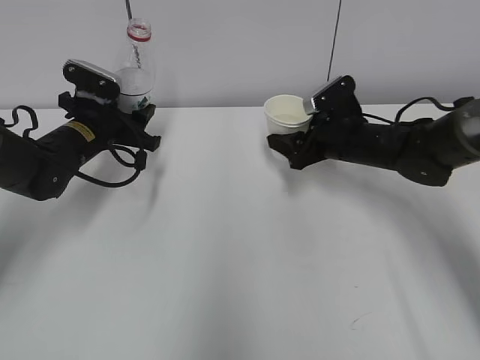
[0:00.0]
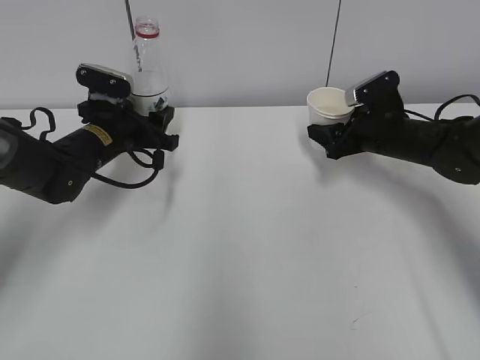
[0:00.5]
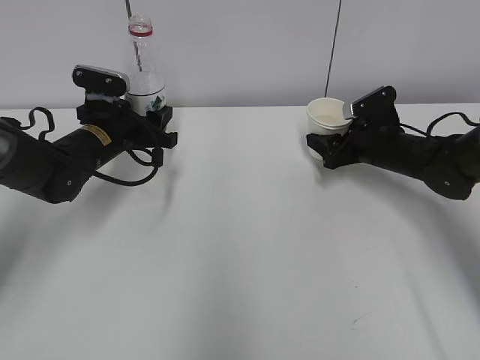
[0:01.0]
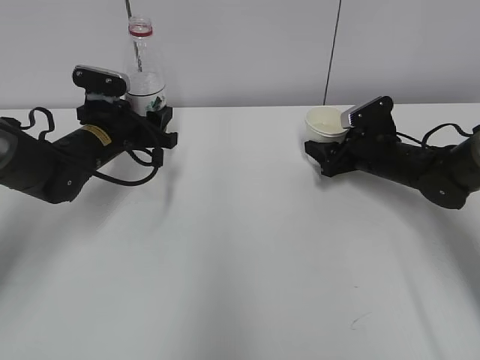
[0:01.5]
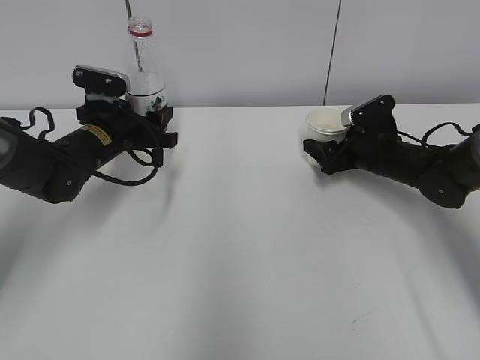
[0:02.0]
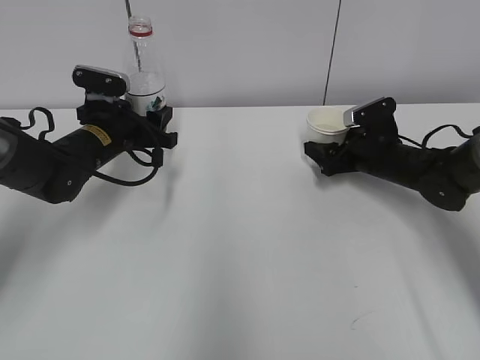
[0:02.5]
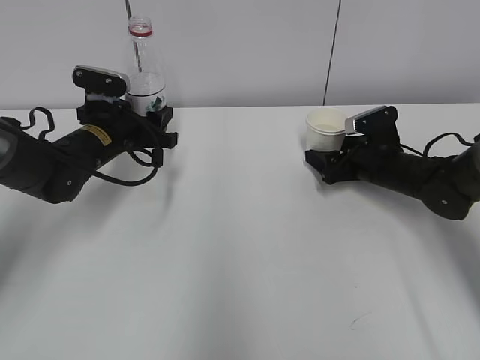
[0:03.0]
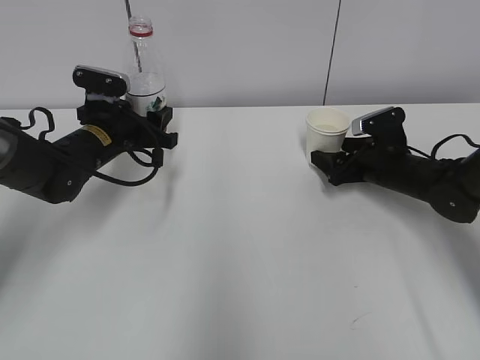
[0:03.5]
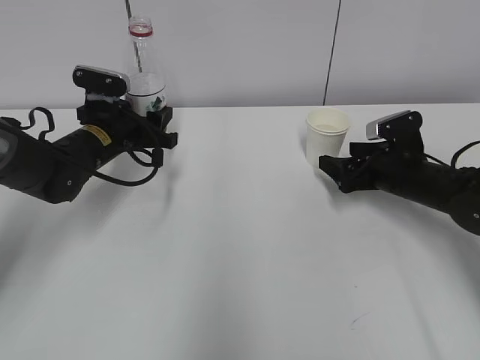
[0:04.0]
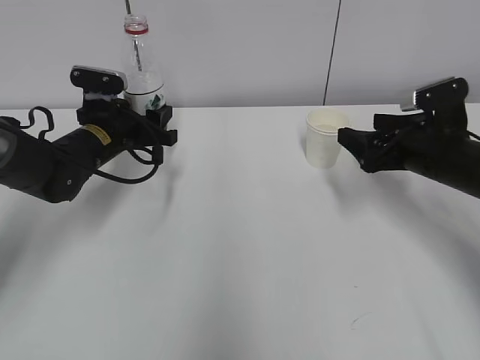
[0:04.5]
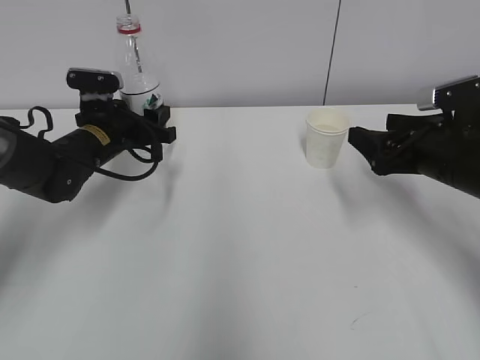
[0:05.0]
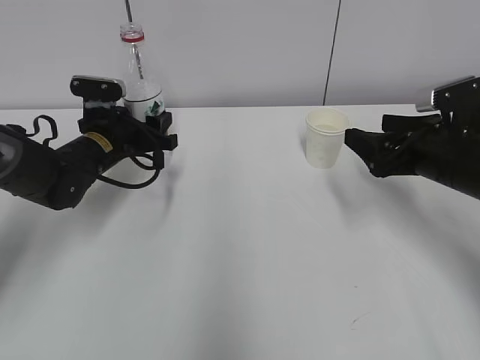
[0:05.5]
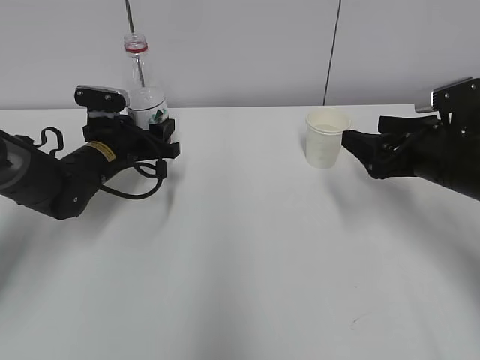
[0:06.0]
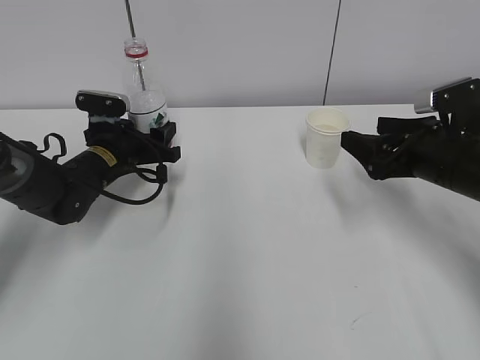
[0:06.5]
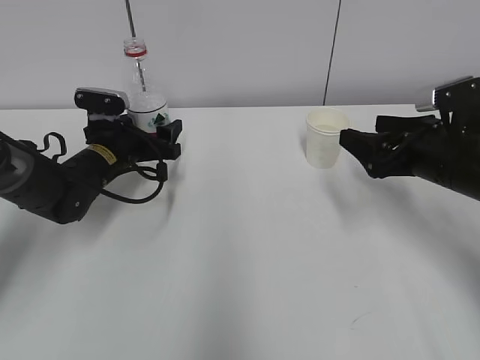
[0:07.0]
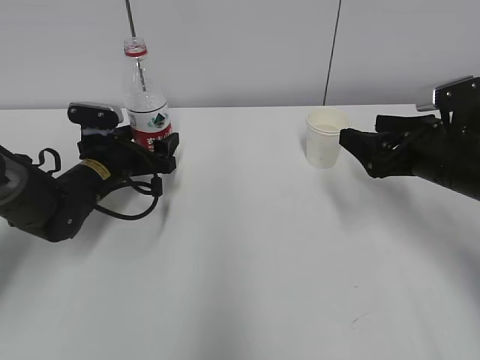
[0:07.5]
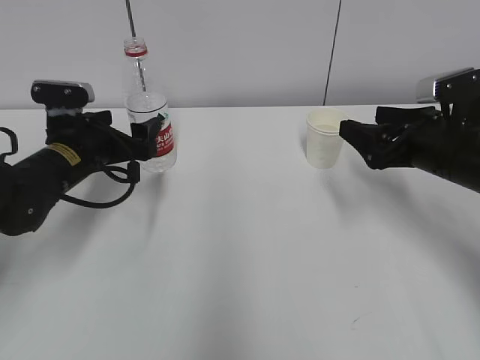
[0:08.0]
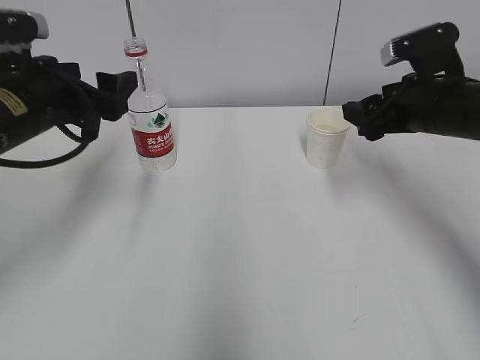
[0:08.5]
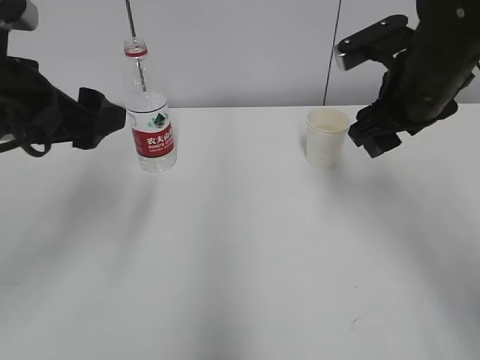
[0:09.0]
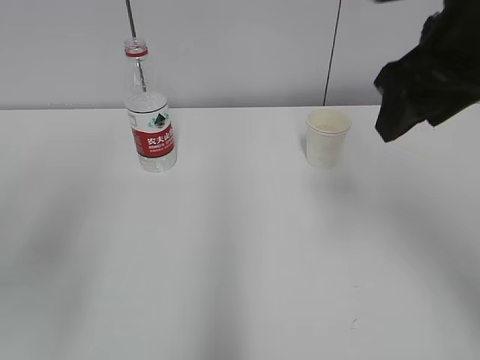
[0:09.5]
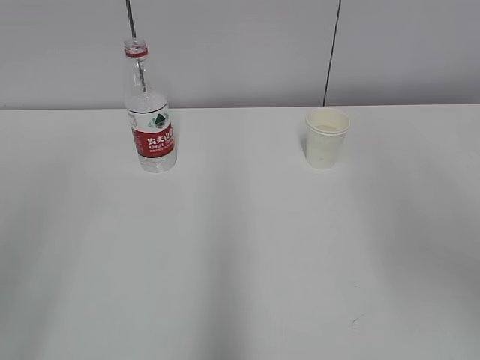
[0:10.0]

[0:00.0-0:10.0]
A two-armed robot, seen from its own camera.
0:00.0 to 0:02.0: The right gripper shifts some 5 cm to the right, and opens its fingers.
0:02.0 to 0:04.0: The right gripper heads backward, covering roughly 5 cm.
0:04.0 to 0:06.0: The right gripper moves upward and backward, some 10 cm.
0:06.0 to 0:08.0: The left gripper shifts approximately 5 cm backward, and opens up.
0:08.0 to 0:10.0: The left gripper shifts roughly 40 cm backward and upward, while the right gripper is displaced upward and backward by roughly 30 cm, and closes, then opens again.

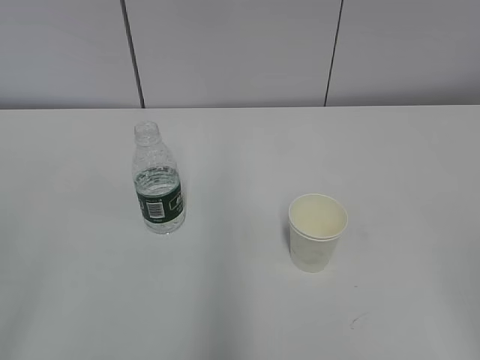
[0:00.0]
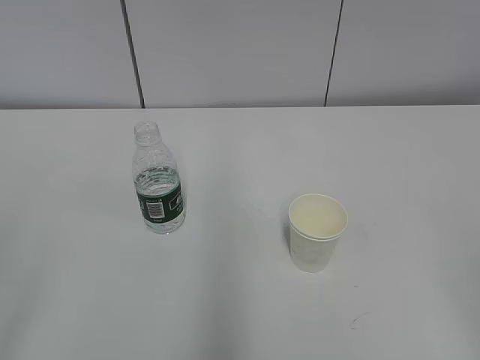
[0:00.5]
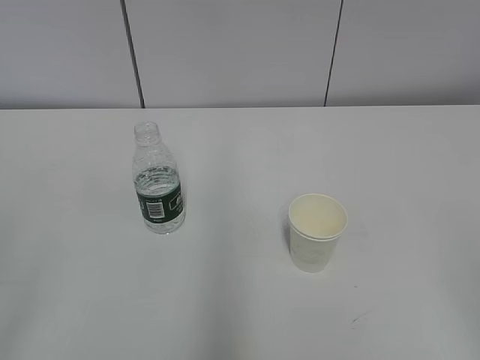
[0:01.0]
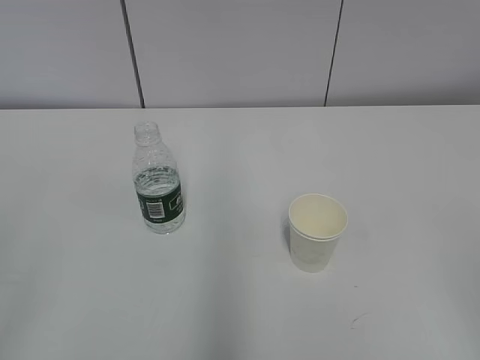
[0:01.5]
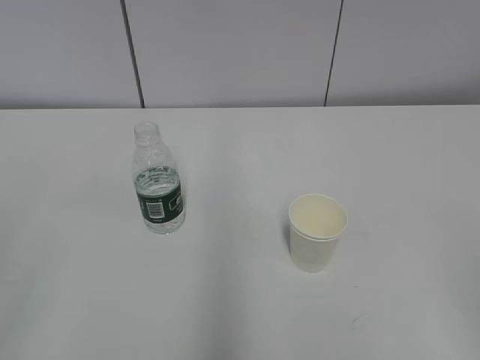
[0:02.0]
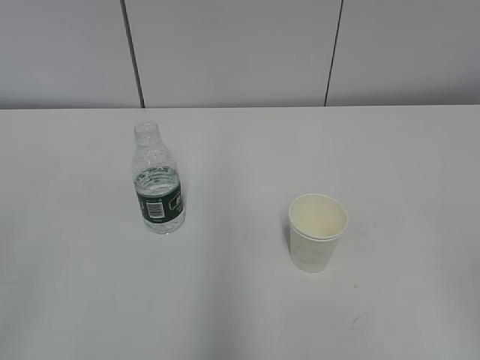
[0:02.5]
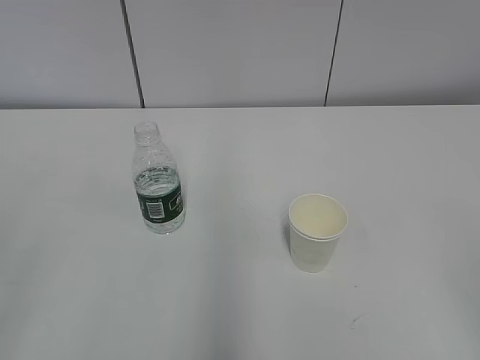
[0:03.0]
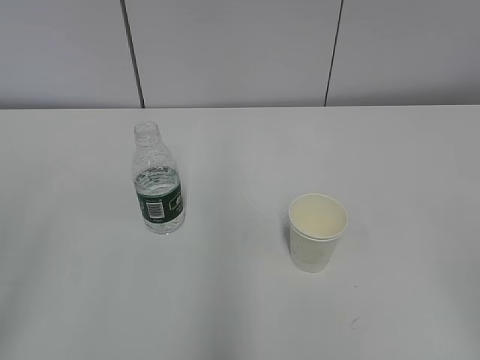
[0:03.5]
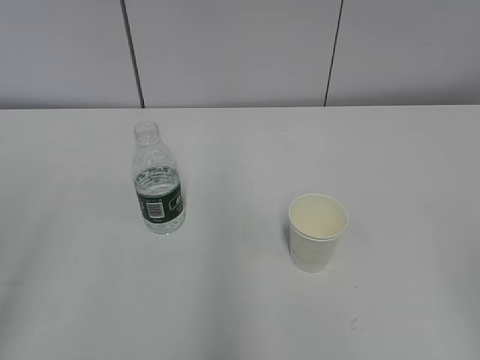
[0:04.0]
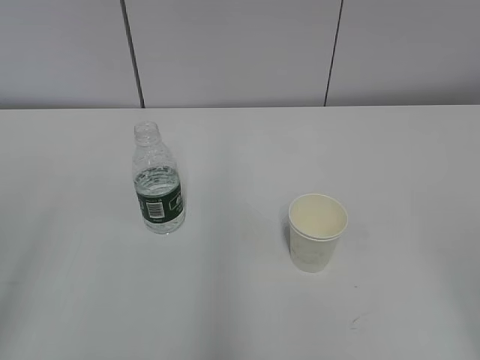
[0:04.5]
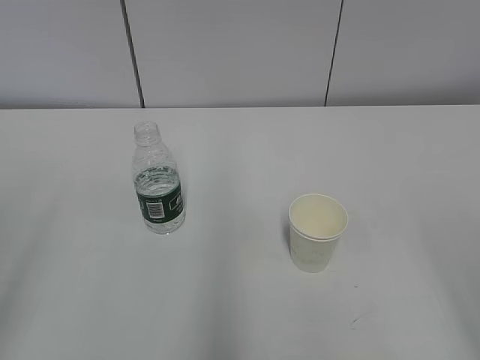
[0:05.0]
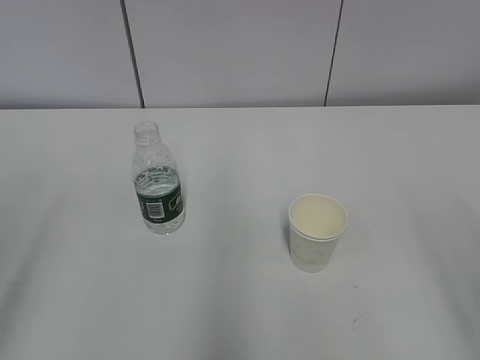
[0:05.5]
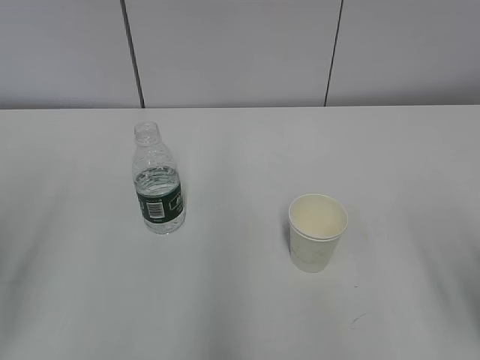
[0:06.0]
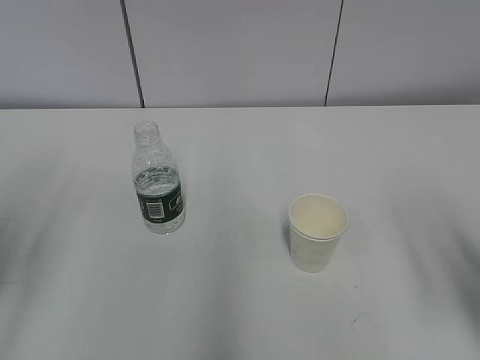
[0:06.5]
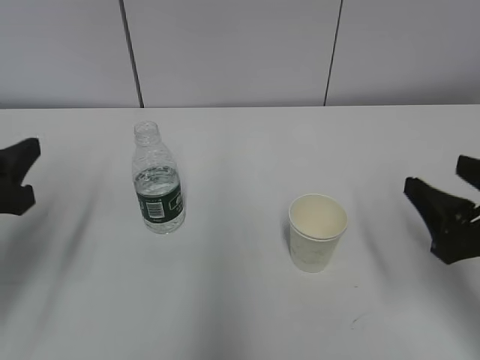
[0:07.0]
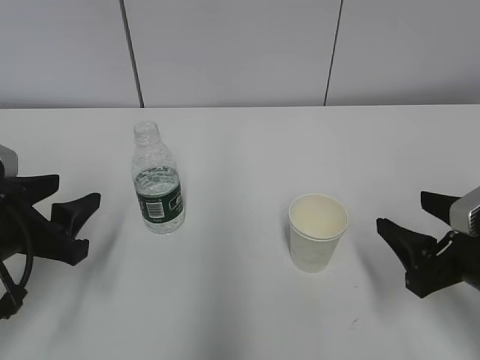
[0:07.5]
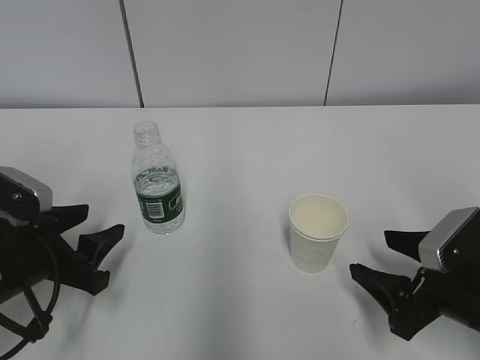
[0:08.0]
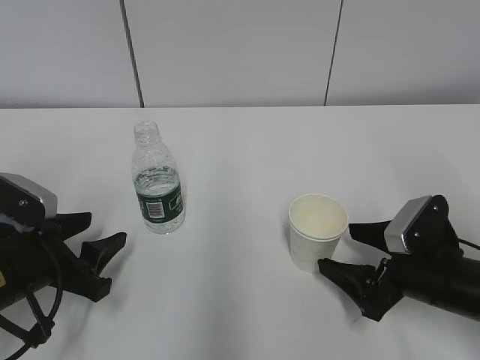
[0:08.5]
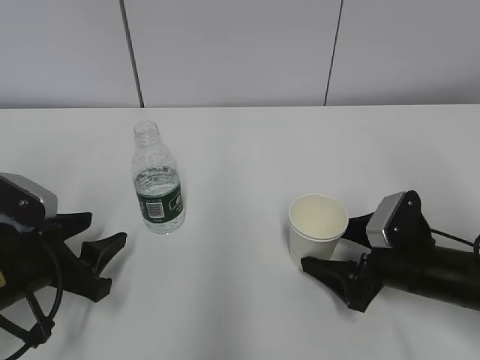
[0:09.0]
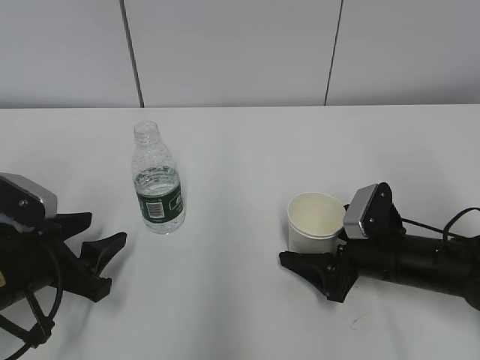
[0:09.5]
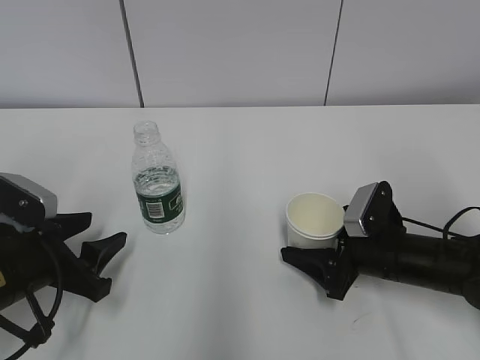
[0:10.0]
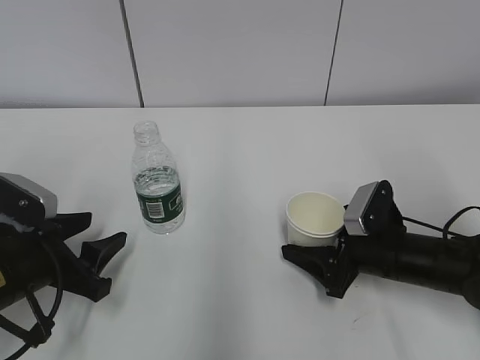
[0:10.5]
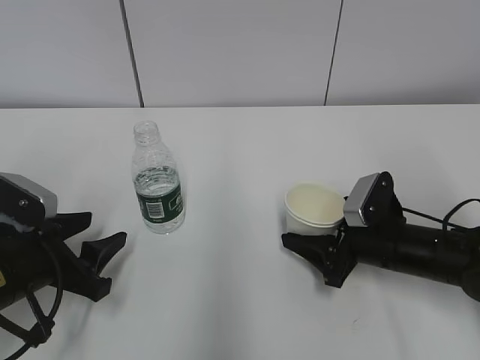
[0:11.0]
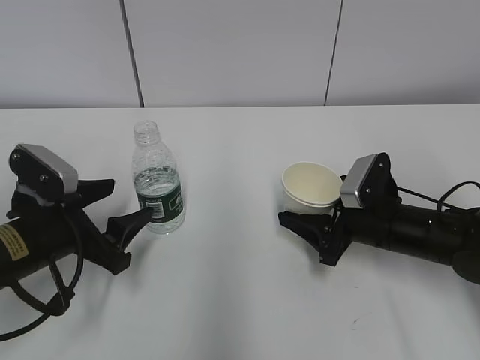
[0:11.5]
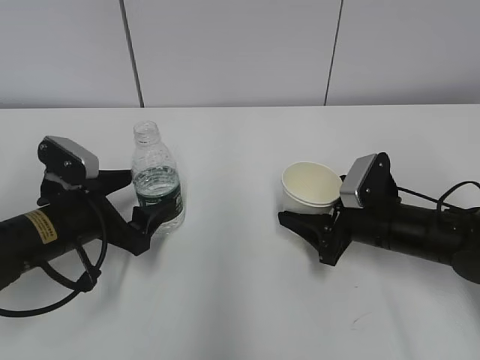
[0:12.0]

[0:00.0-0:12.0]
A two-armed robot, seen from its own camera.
Step, 0:00.0 to 0:09.0: Grab the paper cup with the right hand.
Step, 0:09.5 to 0:12.0: Grab the water bottle with the left hand.
0:06.0 to 0:08.0: The left gripper shifts approximately 20 cm downward, forward and to the right, while the right gripper goes approximately 15 cm downward and forward.
0:08.0 to 0:10.0: The right gripper travels forward by about 10 cm, and opens, then closes once more.
0:10.0 to 0:12.0: The right gripper closes up, while the left gripper travels forward by roughly 5 cm, and opens.

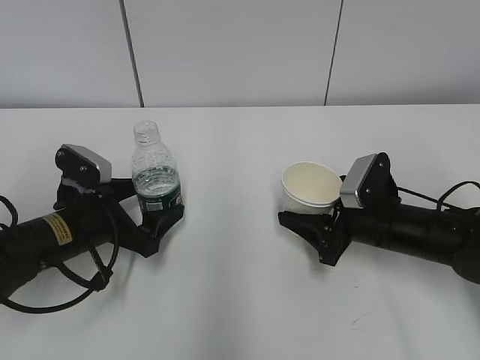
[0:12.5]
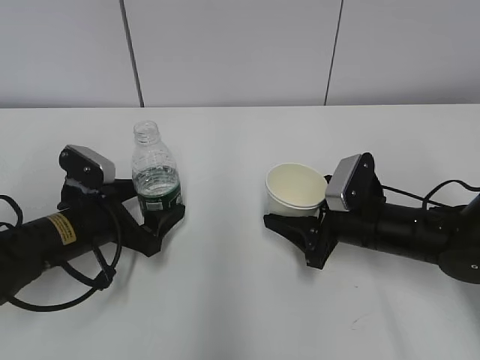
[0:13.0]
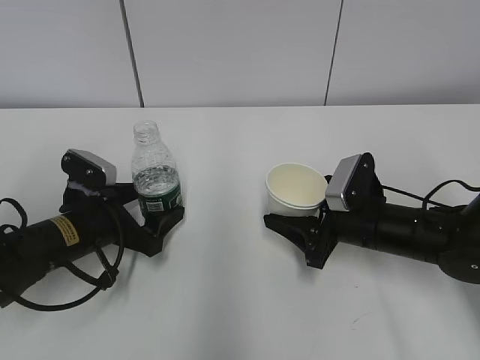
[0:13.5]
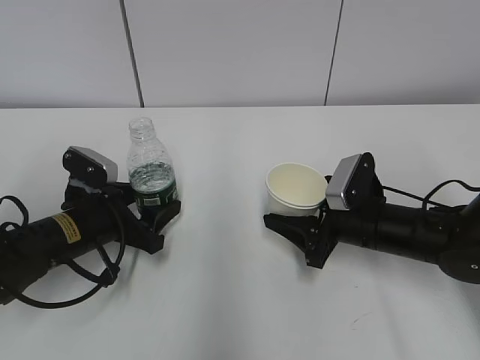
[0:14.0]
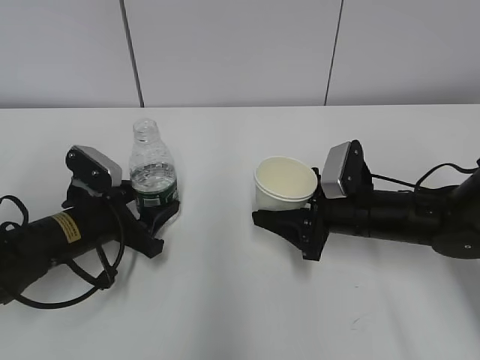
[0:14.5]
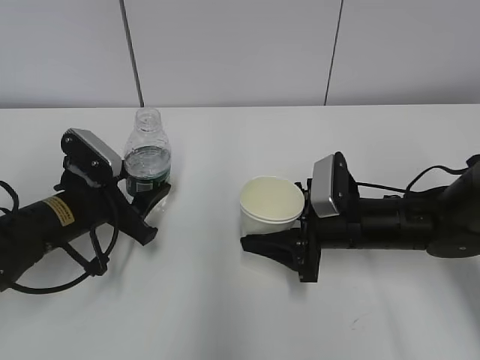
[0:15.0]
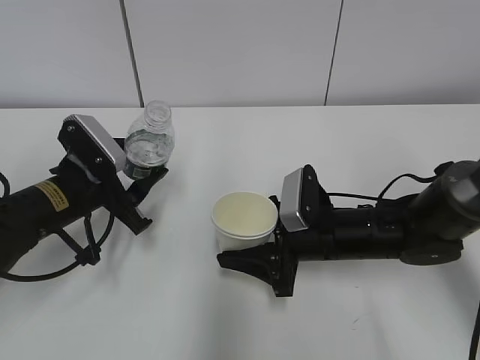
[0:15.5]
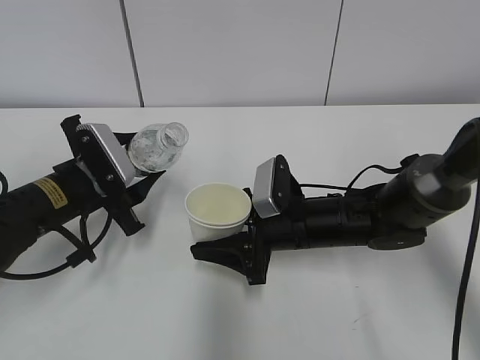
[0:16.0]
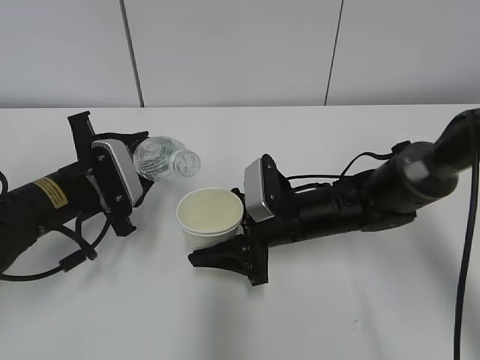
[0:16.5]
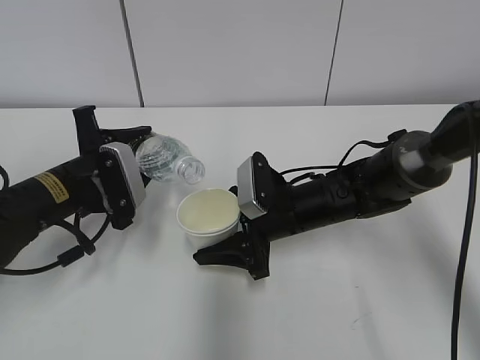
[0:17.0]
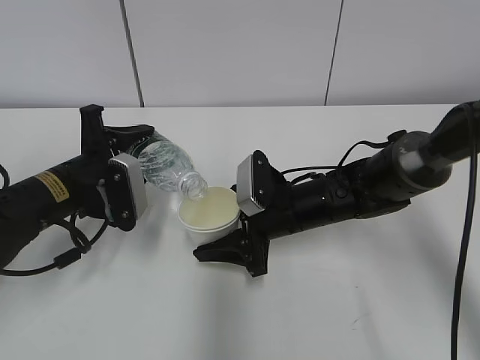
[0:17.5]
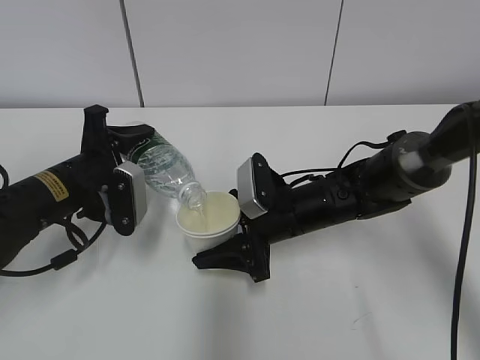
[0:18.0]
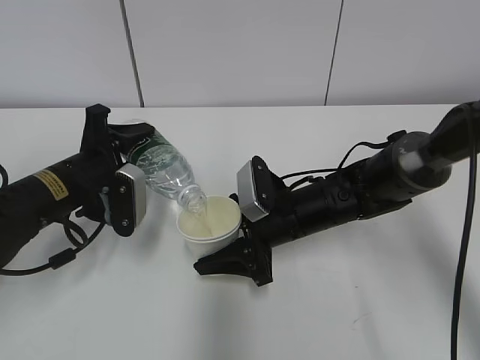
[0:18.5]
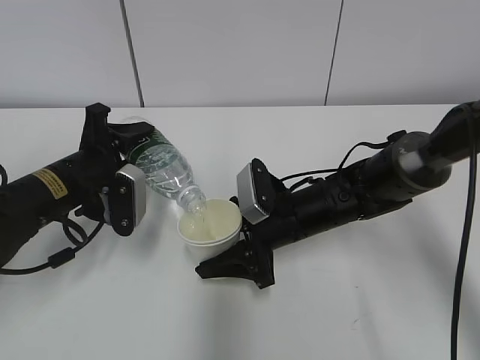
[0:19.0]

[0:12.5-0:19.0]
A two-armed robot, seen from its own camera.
Step, 0:12.5 to 0:14.5: Lift the paper cup with the right hand.
0:12.5 to 0:14.5: The left gripper closes its fingers.
0:14.5 to 0:17.0: The left gripper travels upward by approximately 5 cm; the right gripper travels to the left by roughly 10 cm.
